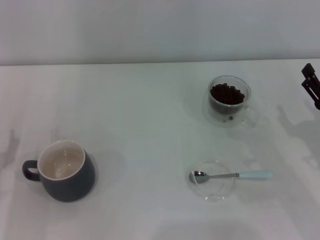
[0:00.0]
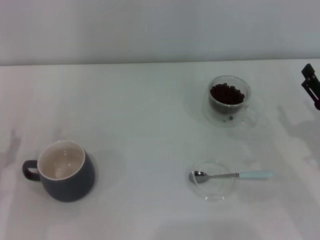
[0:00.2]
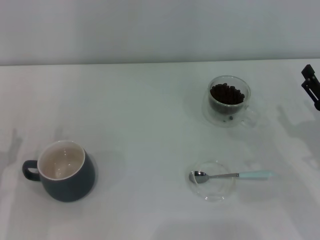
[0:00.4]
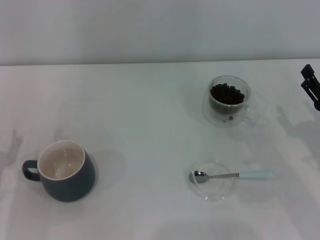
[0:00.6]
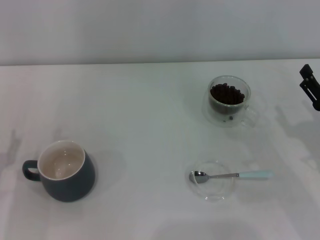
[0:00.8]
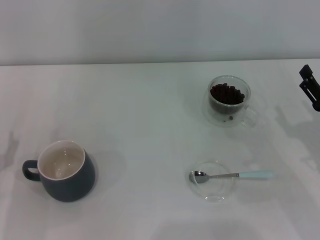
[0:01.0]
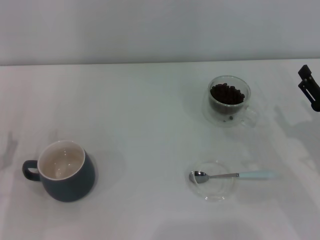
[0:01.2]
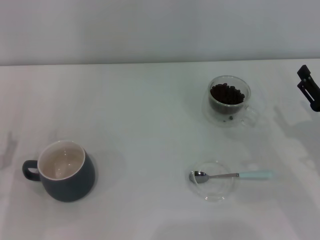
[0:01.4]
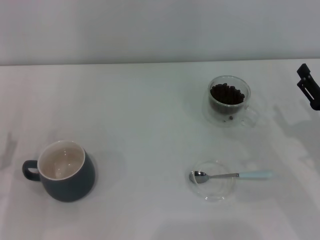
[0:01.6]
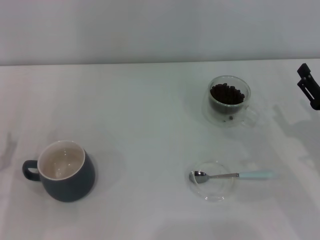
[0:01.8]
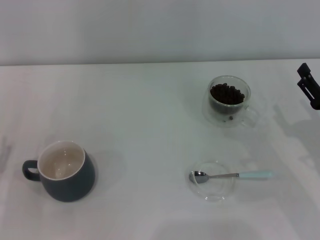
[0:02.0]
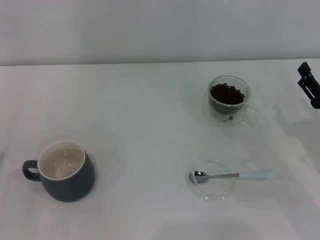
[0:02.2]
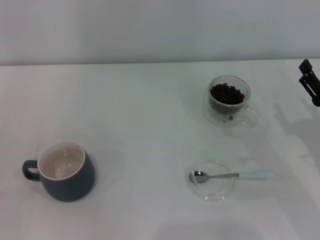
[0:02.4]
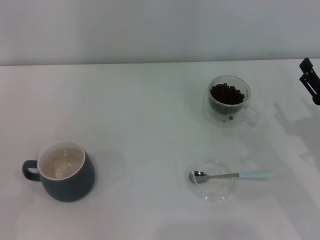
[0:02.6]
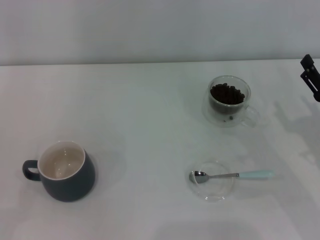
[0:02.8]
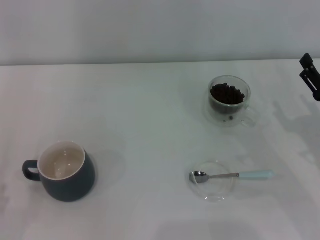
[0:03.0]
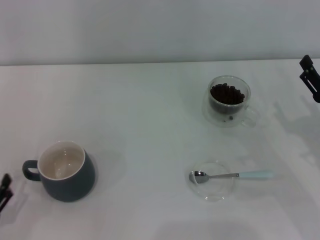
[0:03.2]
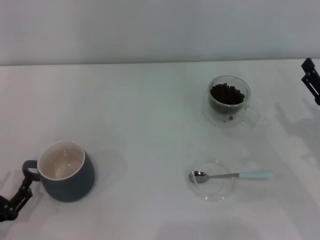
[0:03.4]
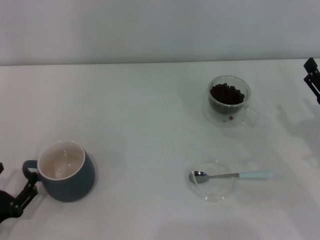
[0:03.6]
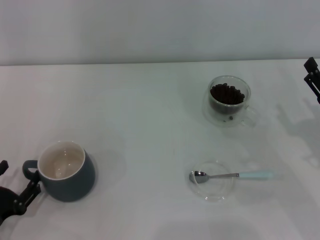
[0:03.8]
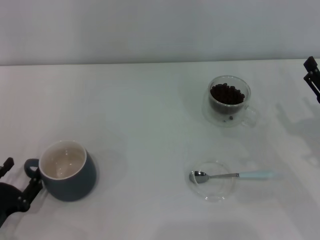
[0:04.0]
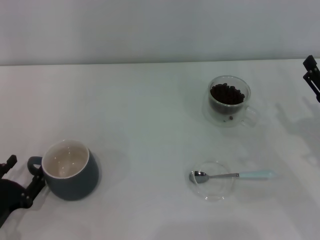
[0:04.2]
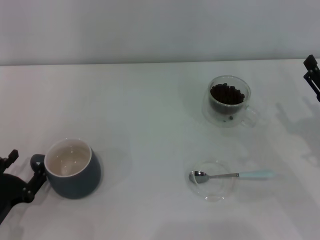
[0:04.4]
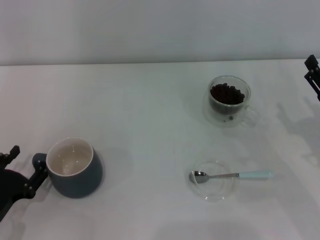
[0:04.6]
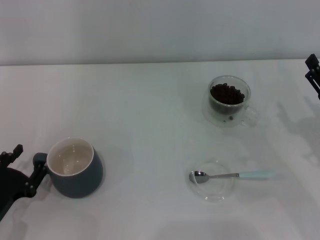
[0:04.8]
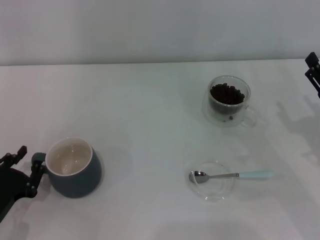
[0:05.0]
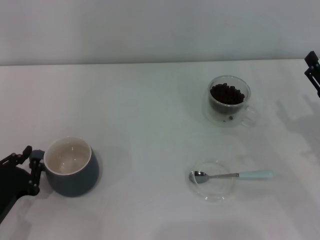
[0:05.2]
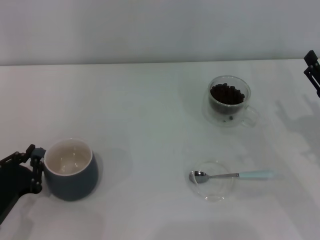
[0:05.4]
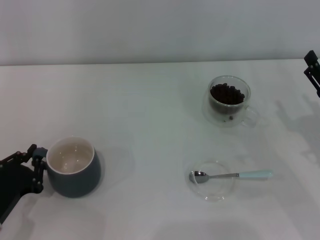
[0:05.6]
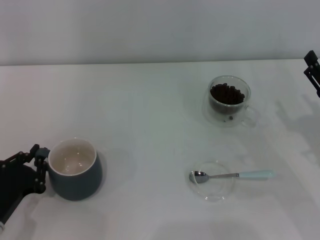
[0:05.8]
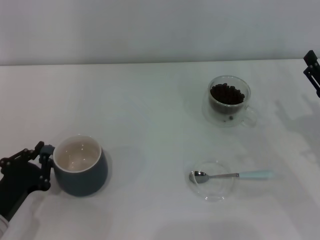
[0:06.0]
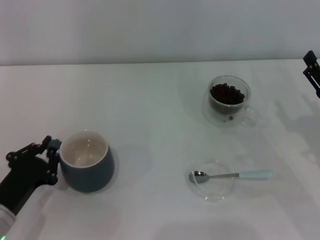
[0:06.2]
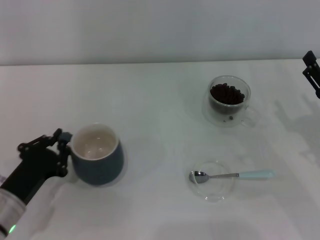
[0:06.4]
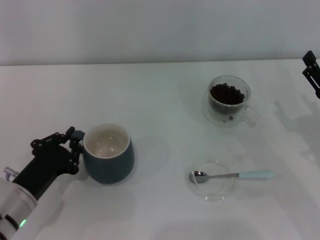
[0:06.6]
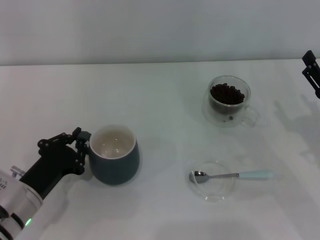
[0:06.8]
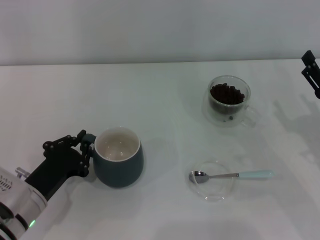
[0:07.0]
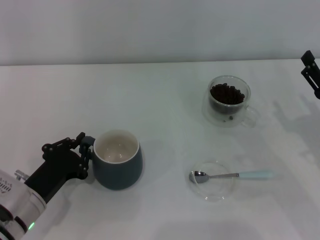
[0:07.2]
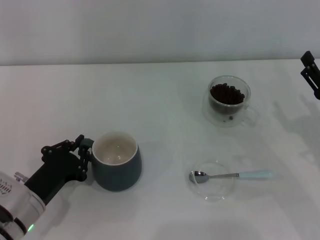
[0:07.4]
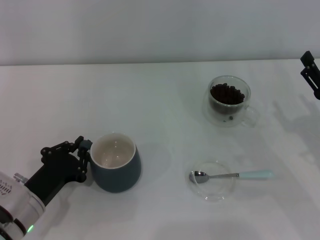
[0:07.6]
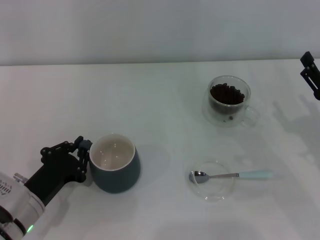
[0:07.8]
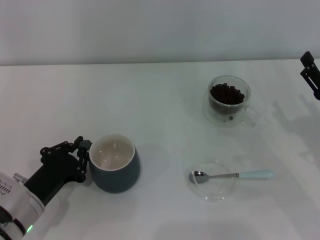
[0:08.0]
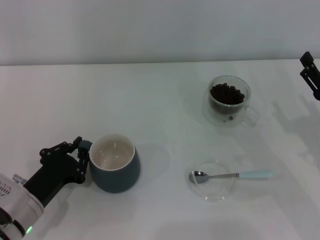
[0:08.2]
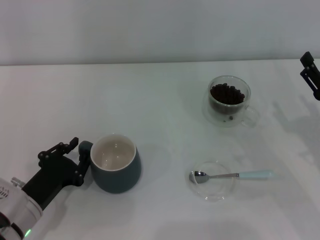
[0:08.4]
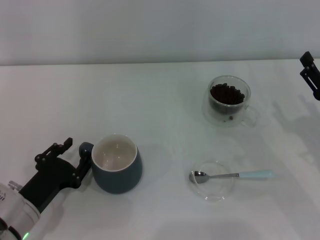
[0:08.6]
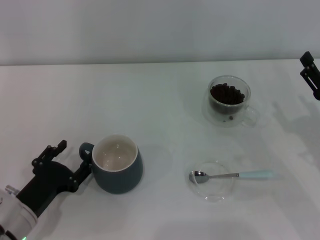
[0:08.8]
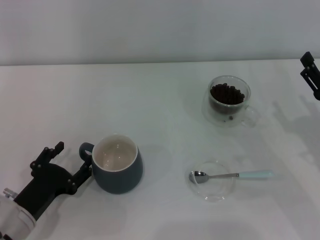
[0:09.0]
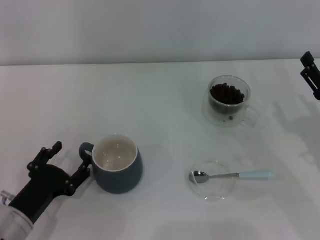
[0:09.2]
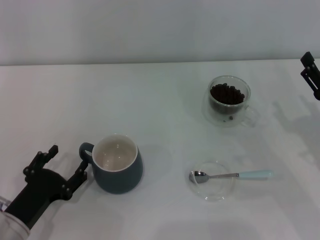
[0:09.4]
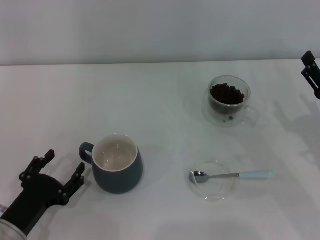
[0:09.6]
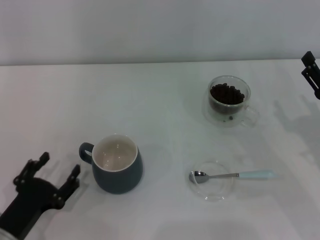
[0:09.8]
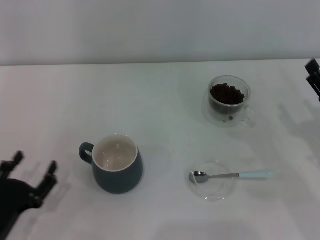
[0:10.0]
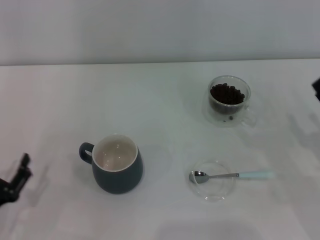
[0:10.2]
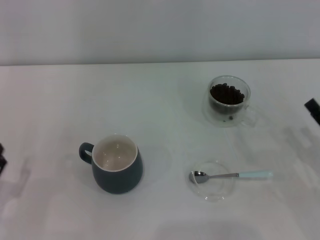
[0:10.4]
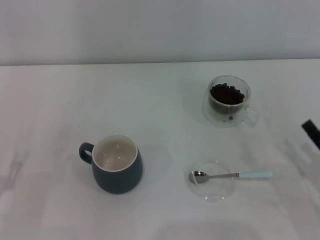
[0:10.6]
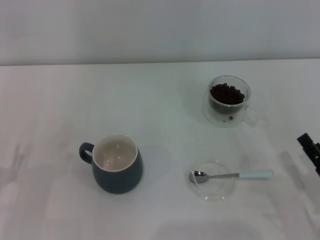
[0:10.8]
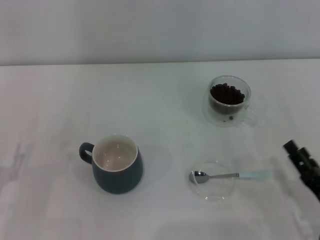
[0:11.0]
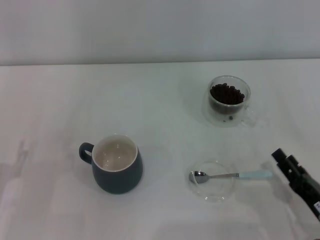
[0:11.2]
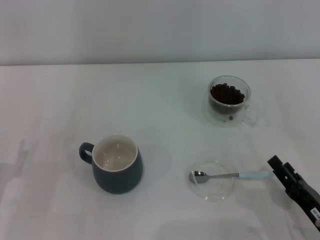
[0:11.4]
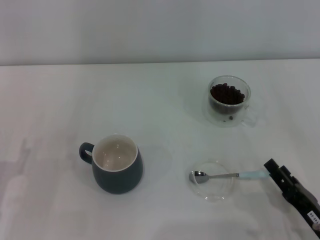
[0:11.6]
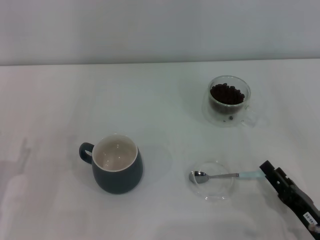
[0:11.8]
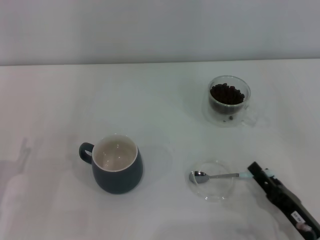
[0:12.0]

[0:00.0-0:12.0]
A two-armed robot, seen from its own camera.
Task of the whole recording: Use a blue spoon to take out the coffee beans from the glass and pour them into the gray cup.
Step, 0:00.0 to 0:09.6: Move the cup to the center of view with the left gripper.
0:00.0 to 0:01.6: The two grippers keep their place.
0:03.0 to 0:04.4: The left gripper shifts some 5 cm forward.
0:04.4 to 0:06.0: The left gripper closes.
0:06.0 to 0:07.6: The left gripper changes place by about 5 cm.
0:07.6 to 0:09.0: The left gripper opens its fingers.
0:09.0 to 0:10.4: The right gripper moves backward, about 5 cm. The left gripper heads to the left, covering about 5 cm.
0:10.4 to 0:12.0: The right gripper goes some 10 cm to the left and backward.

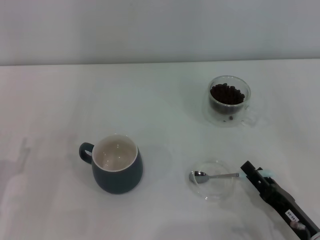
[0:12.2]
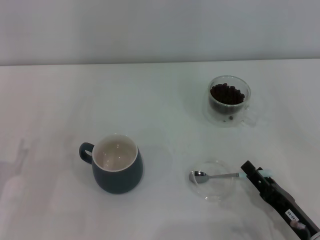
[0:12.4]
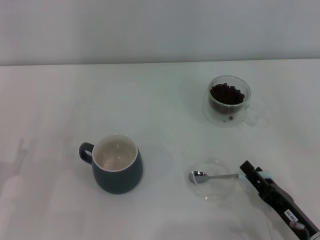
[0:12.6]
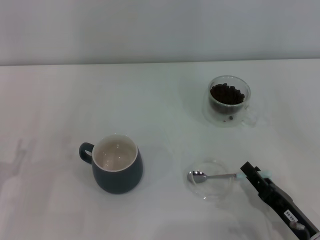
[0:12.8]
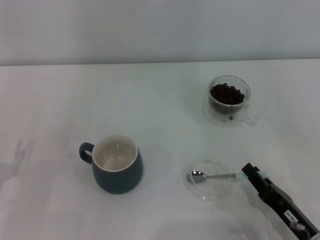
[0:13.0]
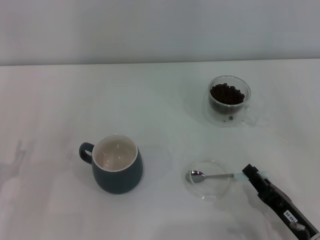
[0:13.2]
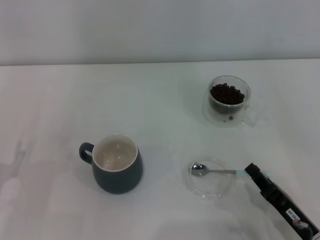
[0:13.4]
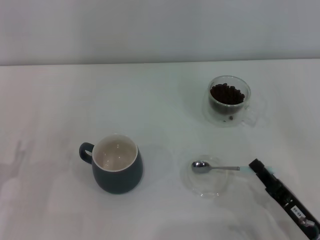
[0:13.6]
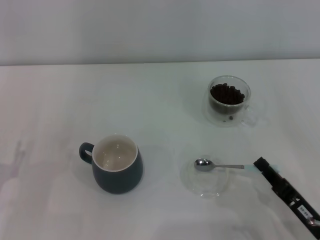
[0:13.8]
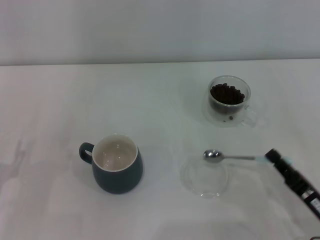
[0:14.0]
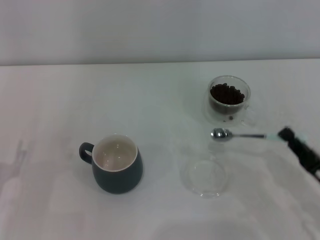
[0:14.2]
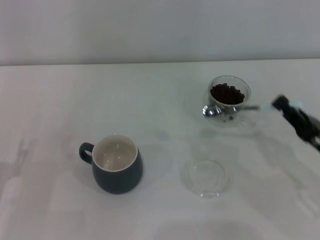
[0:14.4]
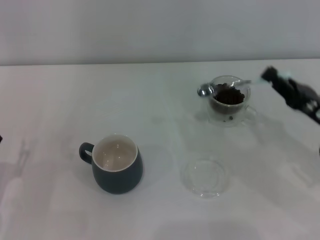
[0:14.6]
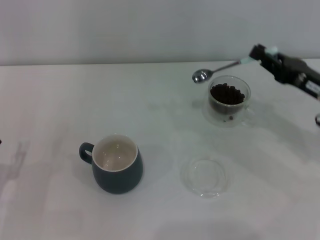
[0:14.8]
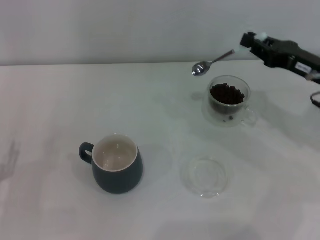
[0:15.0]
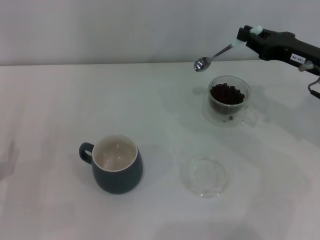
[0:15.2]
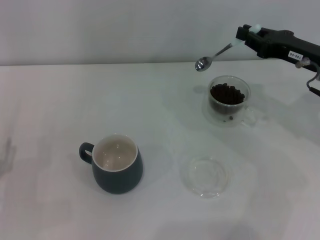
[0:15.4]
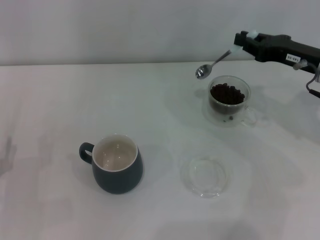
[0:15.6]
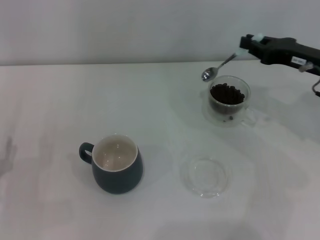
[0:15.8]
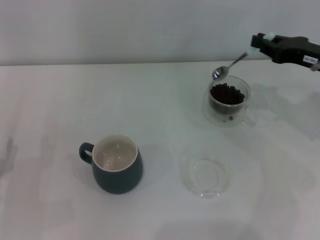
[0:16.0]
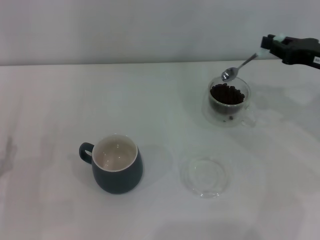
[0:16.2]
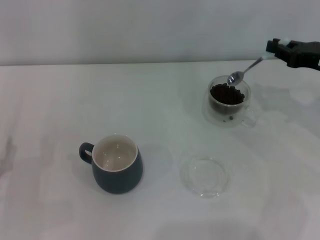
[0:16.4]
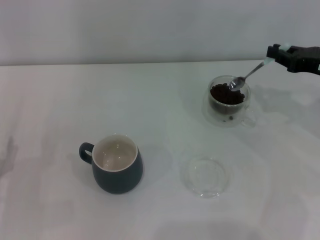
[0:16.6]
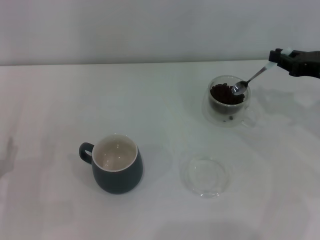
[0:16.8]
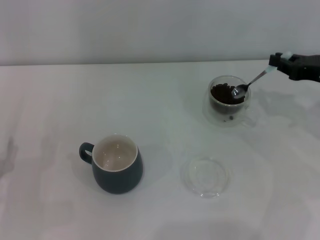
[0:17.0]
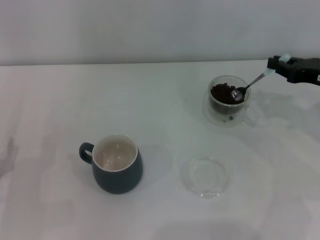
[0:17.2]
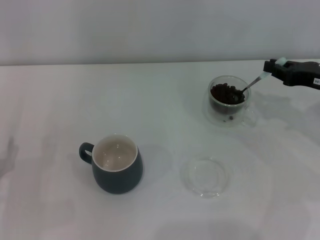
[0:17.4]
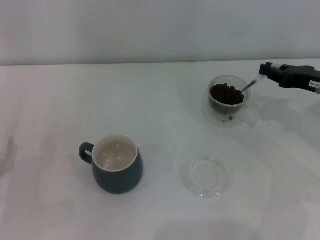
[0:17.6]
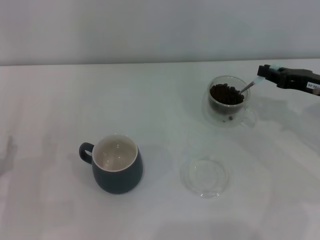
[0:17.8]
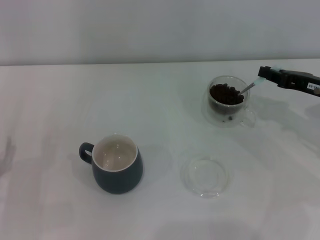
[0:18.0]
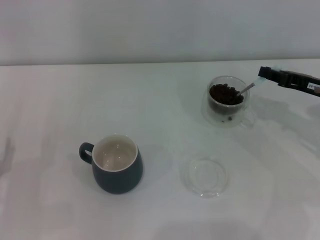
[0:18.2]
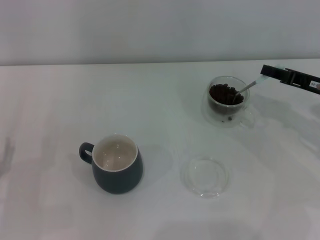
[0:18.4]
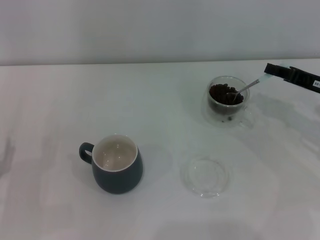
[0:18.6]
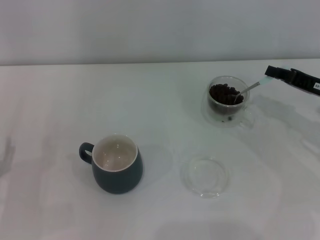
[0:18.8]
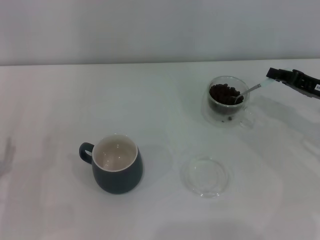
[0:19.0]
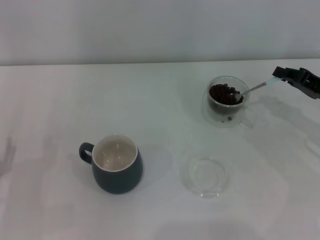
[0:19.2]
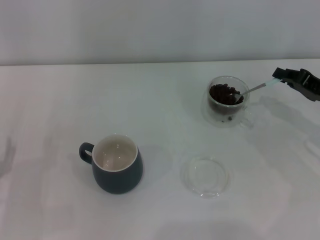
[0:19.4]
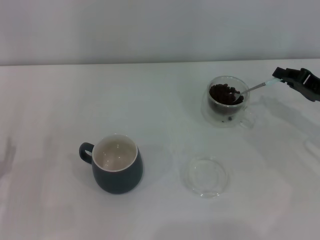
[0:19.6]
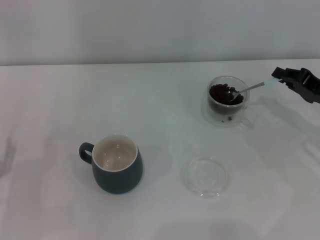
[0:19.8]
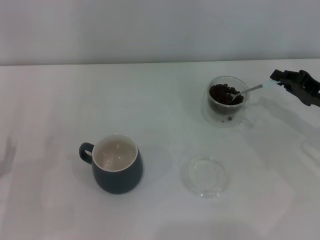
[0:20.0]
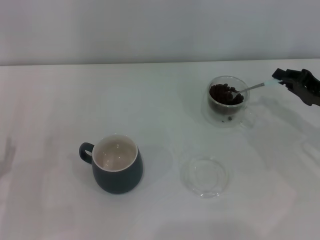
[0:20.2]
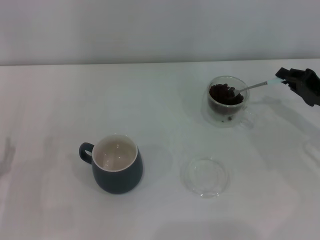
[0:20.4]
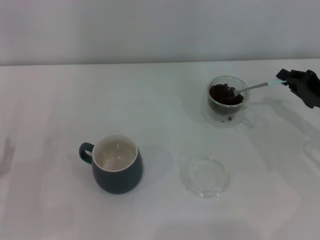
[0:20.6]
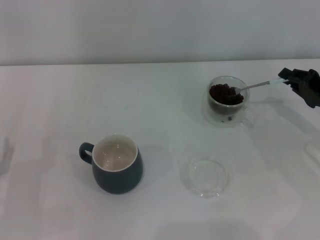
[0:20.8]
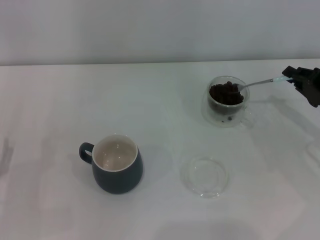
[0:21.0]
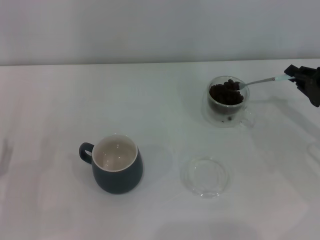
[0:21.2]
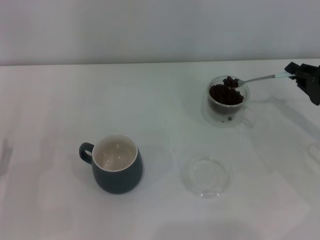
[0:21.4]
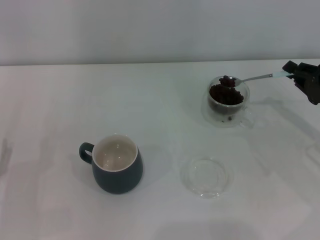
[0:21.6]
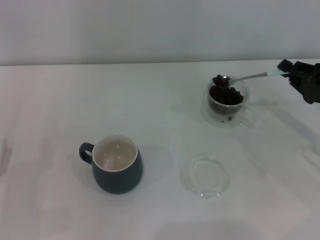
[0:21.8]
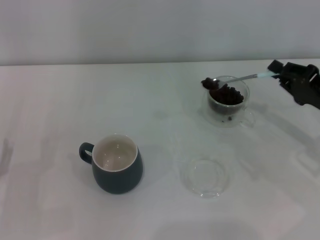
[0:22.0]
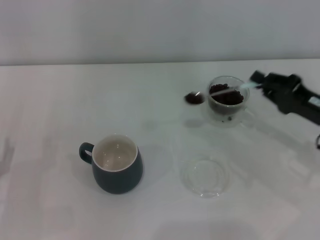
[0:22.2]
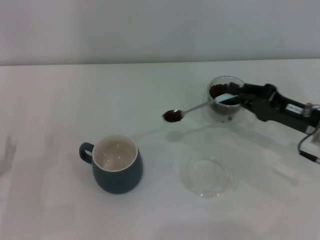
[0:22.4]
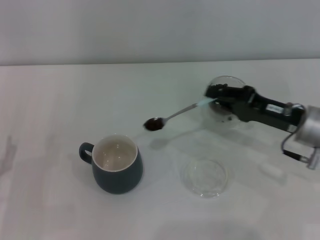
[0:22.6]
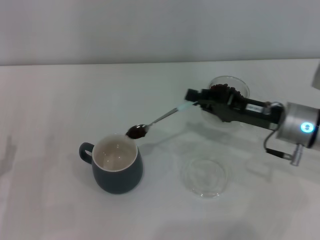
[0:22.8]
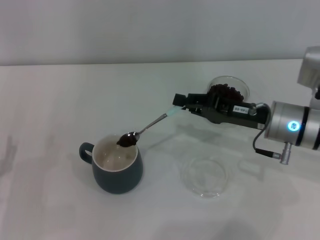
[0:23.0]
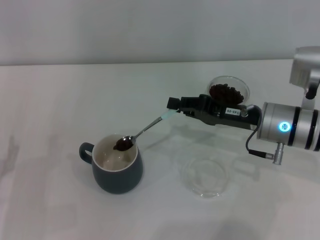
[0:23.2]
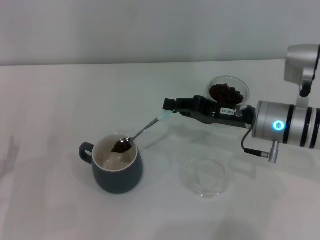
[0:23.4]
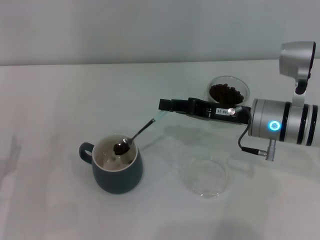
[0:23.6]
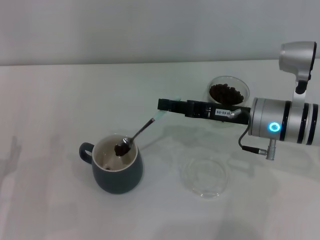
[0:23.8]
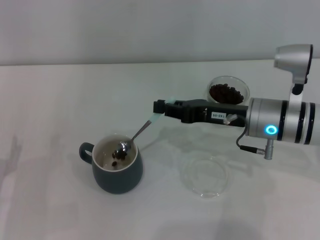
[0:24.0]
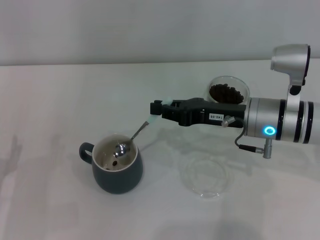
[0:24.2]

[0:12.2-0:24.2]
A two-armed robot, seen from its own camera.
Task of the whole recording: Use a blue spoon to take out the coffee beans from the glass and pour them into the gray cup.
0:12.2 to 0:13.8: The right gripper closes up.
0:13.8 to 0:15.2: The right gripper goes about 25 cm forward and upward.
0:15.2 to 0:16.6: The grippers stay close to where they were, moving slightly.
0:16.6 to 0:18.2: There are only small adjustments of the grippers.
0:19.8 to 0:21.2: The grippers make only small movements.
0:21.2 to 0:22.6: The right gripper travels to the left by some 10 cm.
0:22.6 to 0:24.2: The right gripper moves to the left, roughly 5 cm.
